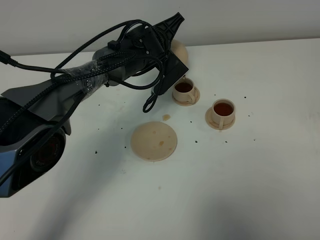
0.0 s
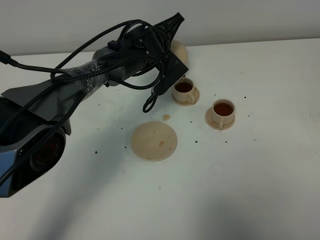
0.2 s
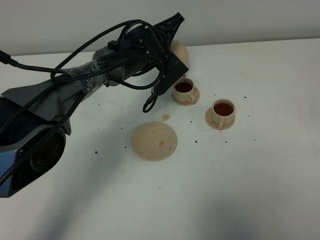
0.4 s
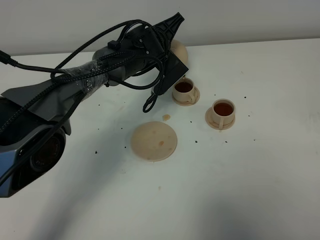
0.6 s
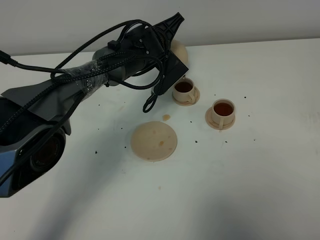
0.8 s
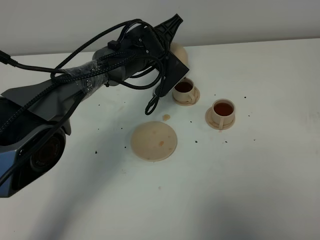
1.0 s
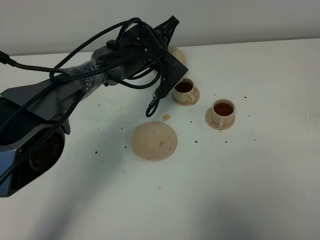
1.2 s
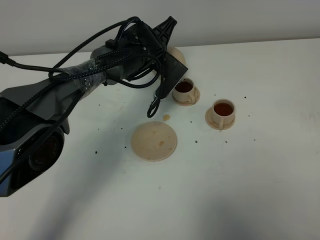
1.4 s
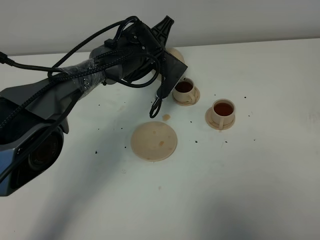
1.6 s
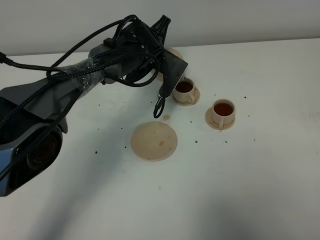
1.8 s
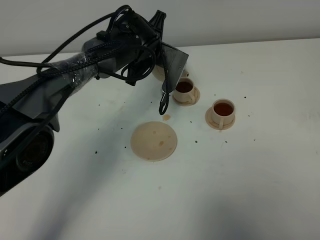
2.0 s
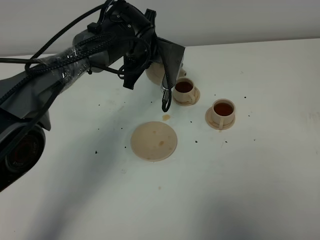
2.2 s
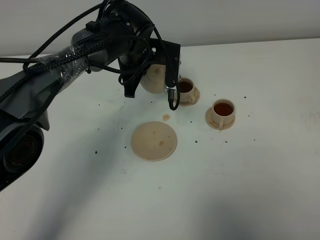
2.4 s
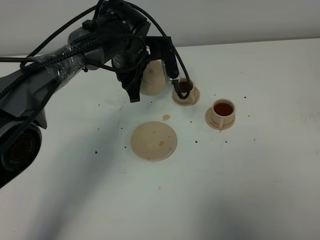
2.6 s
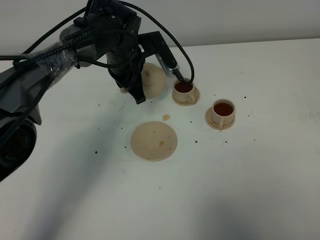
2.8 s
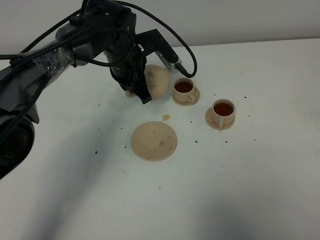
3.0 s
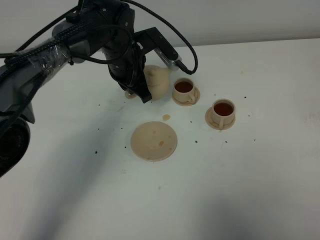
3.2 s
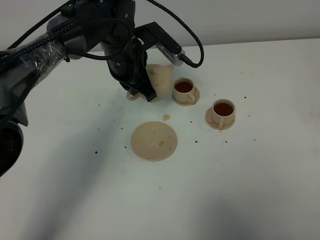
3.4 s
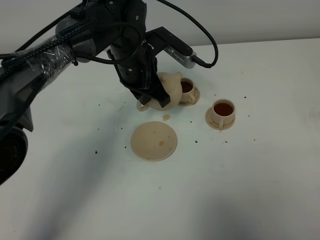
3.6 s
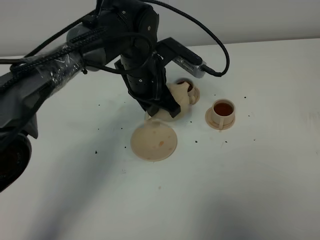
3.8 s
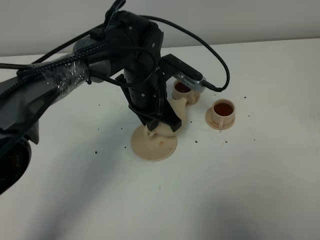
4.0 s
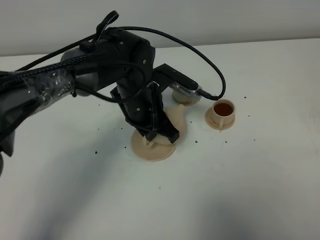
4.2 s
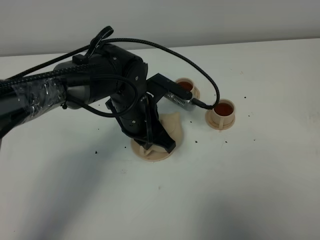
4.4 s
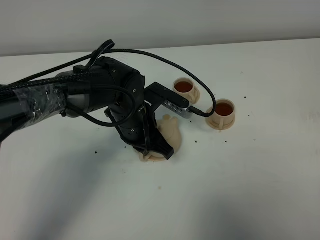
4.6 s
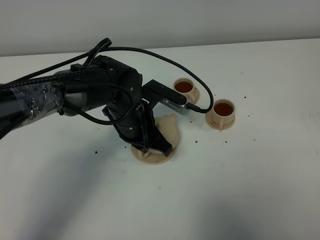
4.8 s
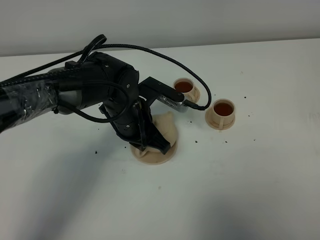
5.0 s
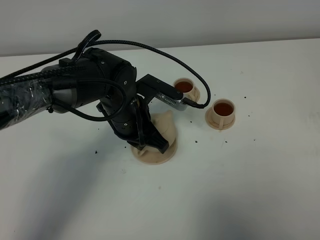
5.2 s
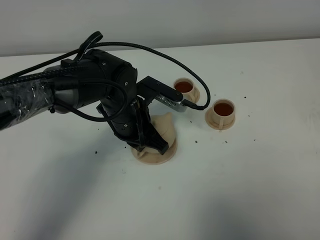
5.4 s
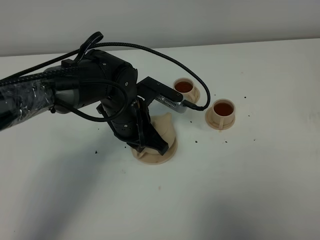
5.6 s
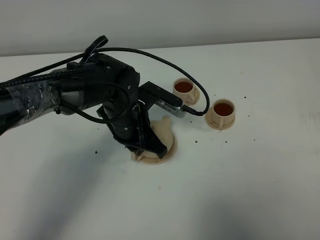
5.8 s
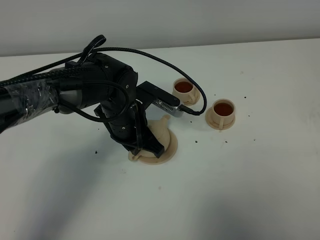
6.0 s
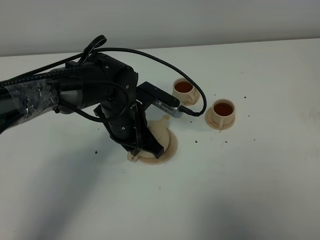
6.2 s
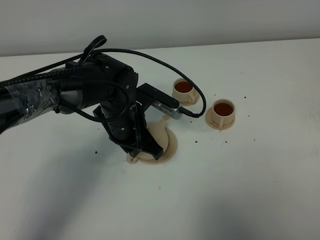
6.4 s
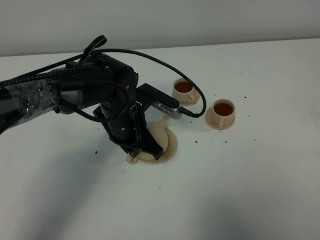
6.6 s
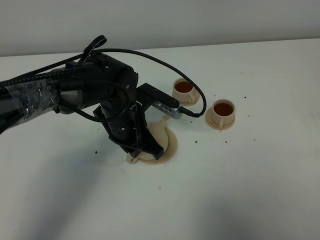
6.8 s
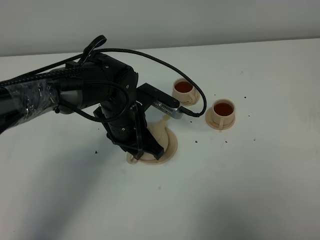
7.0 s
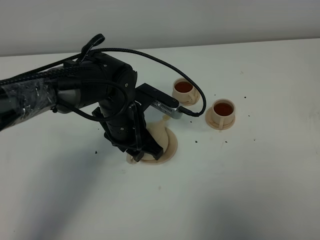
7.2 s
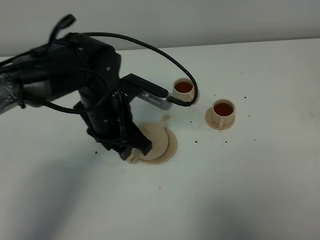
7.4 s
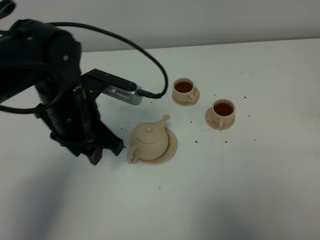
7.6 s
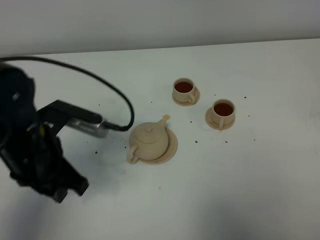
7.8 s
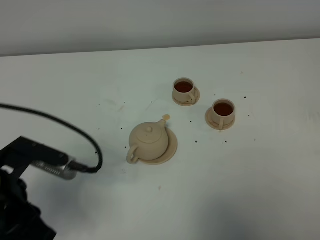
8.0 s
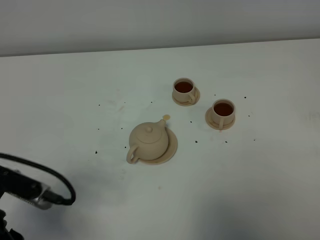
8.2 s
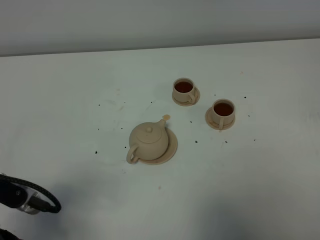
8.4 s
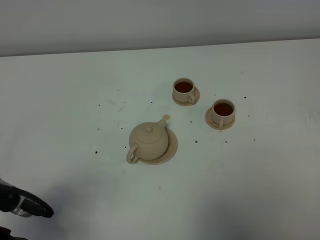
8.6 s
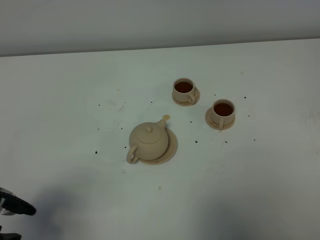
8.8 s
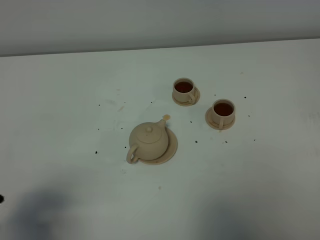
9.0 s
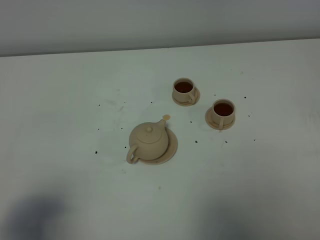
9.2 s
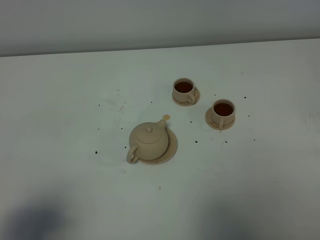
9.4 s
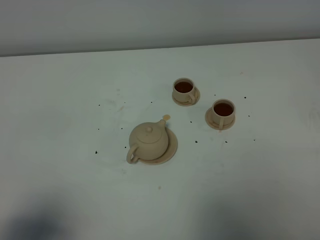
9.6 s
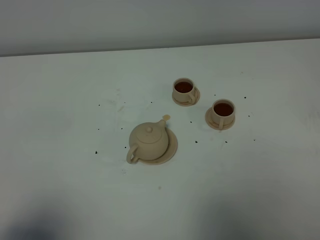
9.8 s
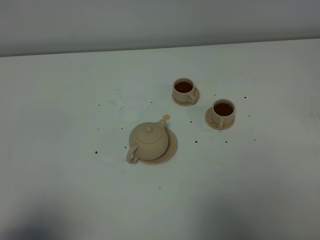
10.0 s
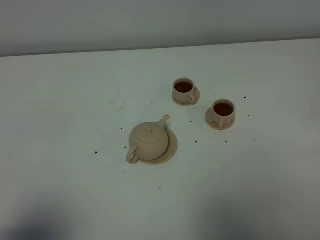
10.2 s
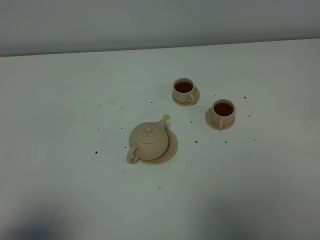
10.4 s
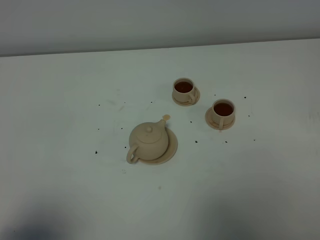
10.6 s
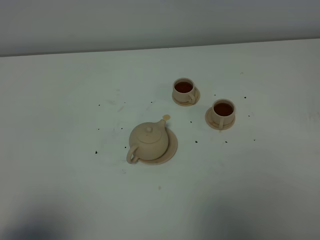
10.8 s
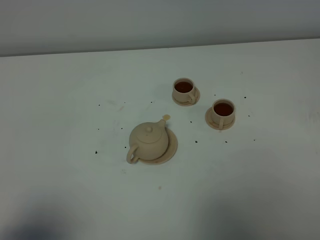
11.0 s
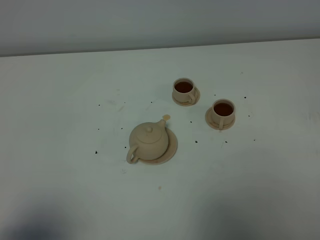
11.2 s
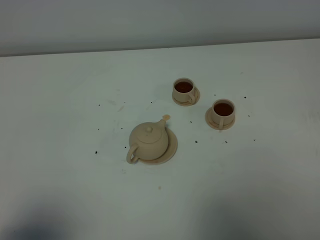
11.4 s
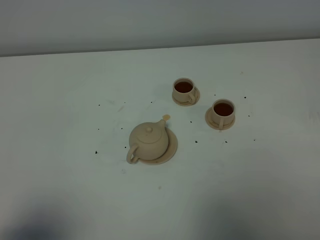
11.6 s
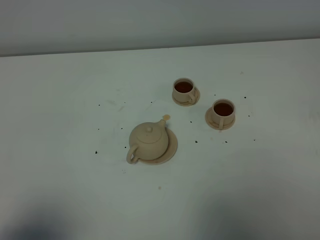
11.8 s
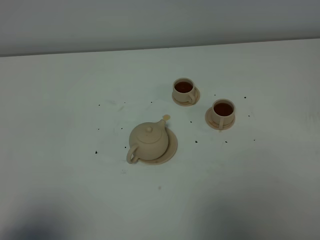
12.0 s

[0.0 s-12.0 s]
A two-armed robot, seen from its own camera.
Task of the whole recording: grasp the brown teapot and pour the tea into the two brown teacups one by one, put the brown teapot back in its original place.
Step, 0.0 to 2.0 s: Pour tea into the teacup with the left gripper.
0.0 to 1.6 s: The grippers move only a little.
1.6 to 3.0 s: The left gripper shifts by about 5 cm.
3.0 to 4.4 s: The left gripper heads backward, covering roughly 10 cm.
4.4 to 6.0 s: The grippers make only small movements.
6.0 to 7.6 s: The left gripper heads upward and to the left, covering some 10 cm, and opens its fingers.
7.6 to 9.0 s: The left gripper goes some 25 cm backward and to the left.
9.0 to 10.4 s: The left gripper goes roughly 5 cm backward.
10.4 to 12.0 s: Both grippers stay put.
